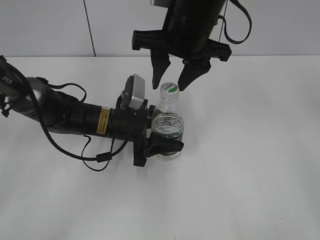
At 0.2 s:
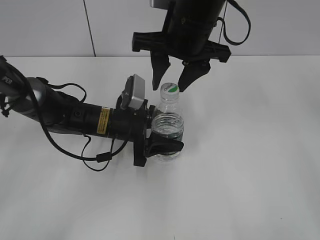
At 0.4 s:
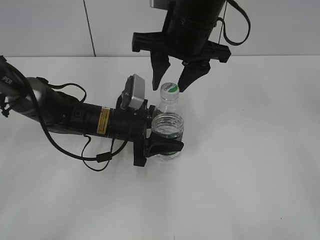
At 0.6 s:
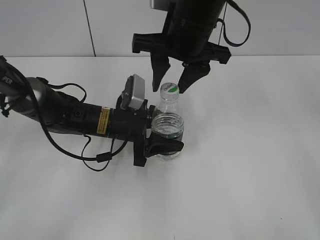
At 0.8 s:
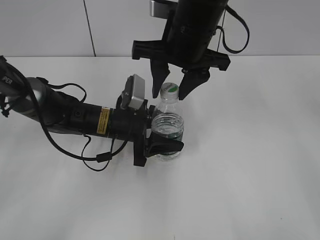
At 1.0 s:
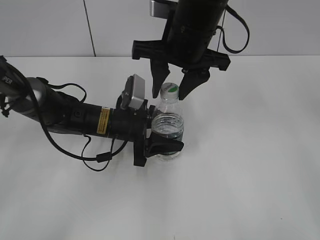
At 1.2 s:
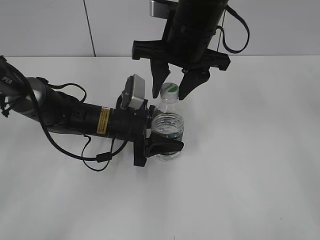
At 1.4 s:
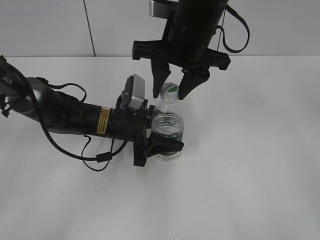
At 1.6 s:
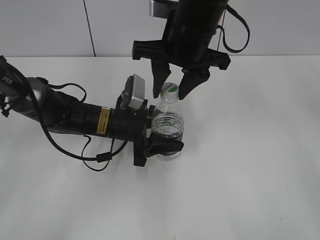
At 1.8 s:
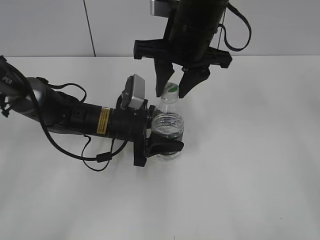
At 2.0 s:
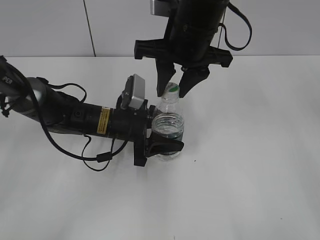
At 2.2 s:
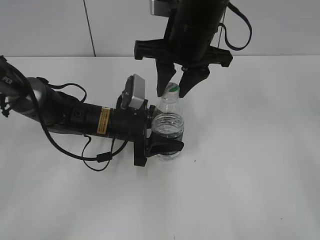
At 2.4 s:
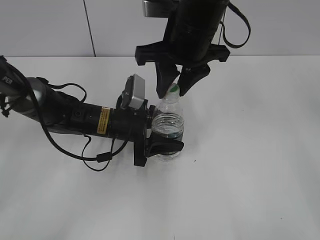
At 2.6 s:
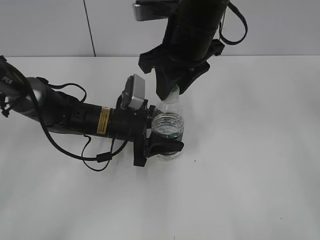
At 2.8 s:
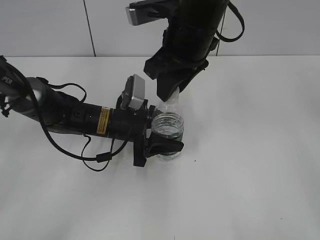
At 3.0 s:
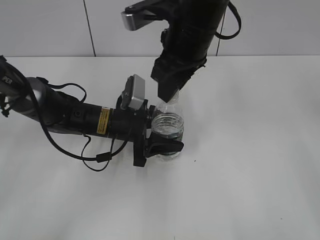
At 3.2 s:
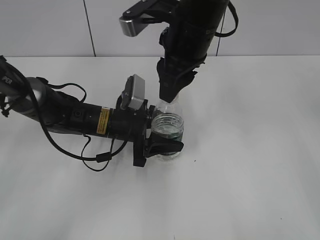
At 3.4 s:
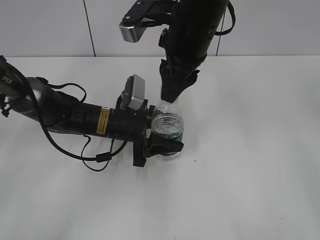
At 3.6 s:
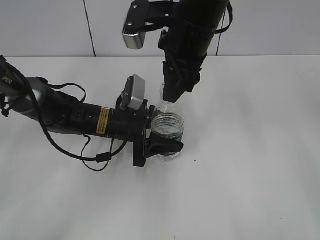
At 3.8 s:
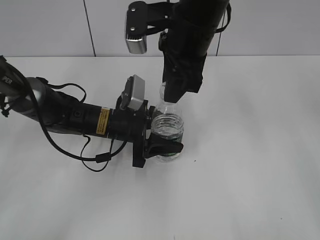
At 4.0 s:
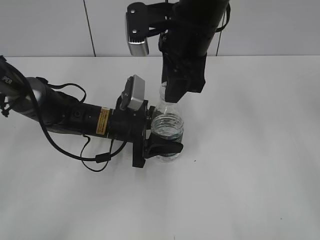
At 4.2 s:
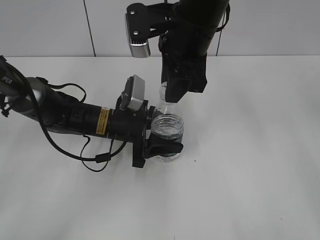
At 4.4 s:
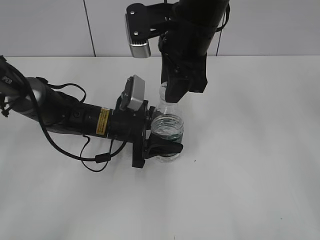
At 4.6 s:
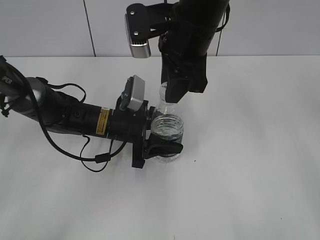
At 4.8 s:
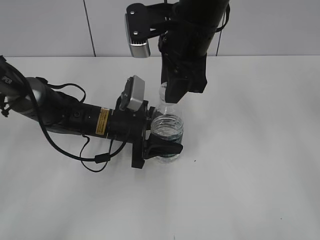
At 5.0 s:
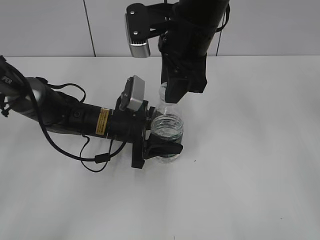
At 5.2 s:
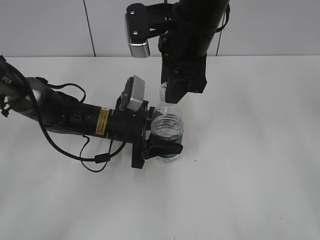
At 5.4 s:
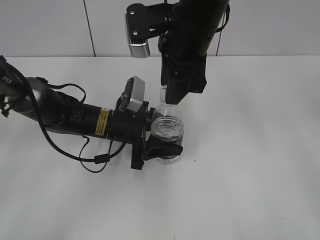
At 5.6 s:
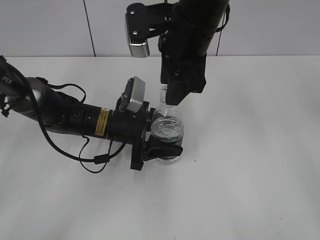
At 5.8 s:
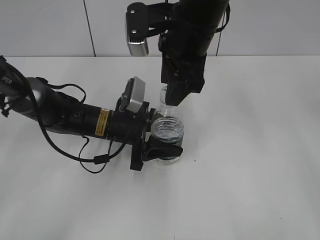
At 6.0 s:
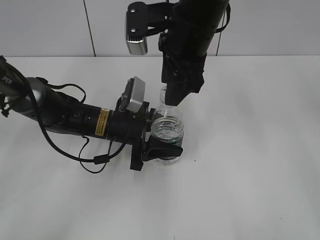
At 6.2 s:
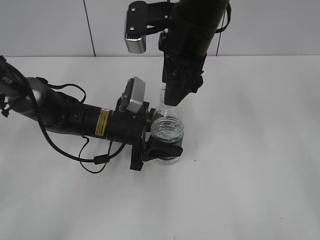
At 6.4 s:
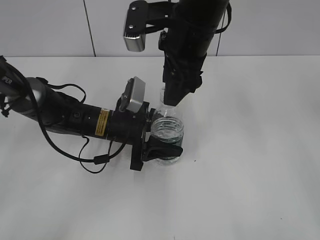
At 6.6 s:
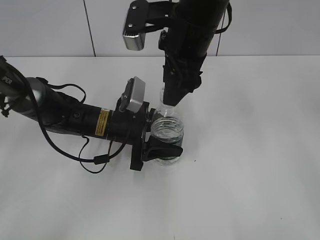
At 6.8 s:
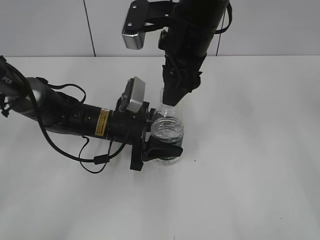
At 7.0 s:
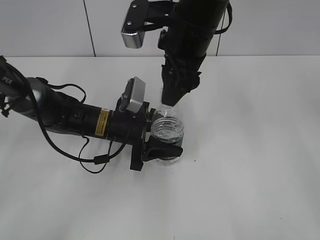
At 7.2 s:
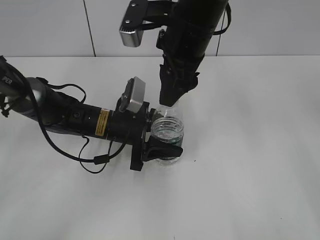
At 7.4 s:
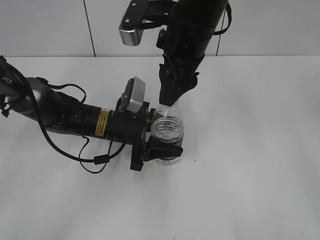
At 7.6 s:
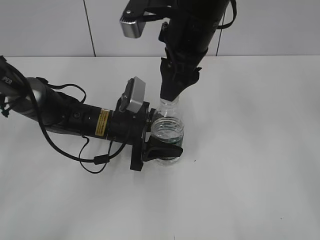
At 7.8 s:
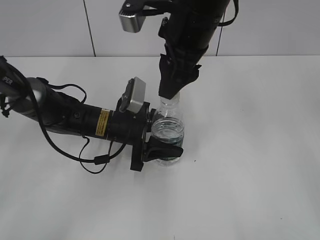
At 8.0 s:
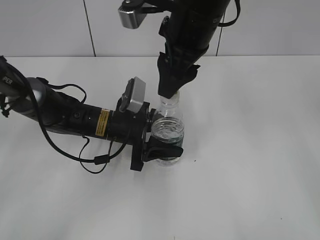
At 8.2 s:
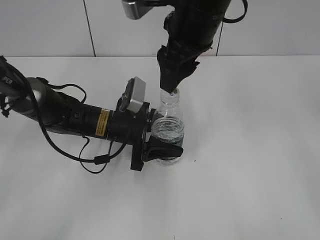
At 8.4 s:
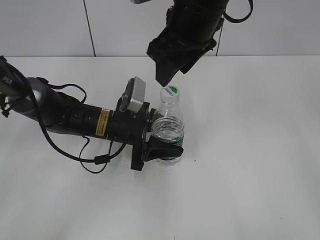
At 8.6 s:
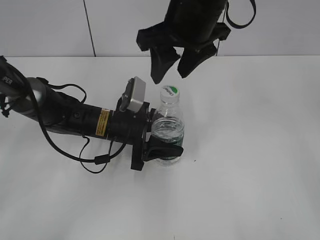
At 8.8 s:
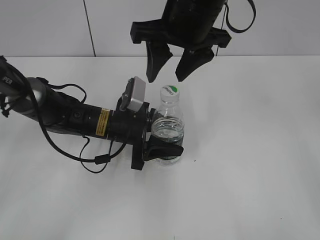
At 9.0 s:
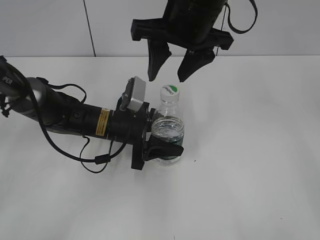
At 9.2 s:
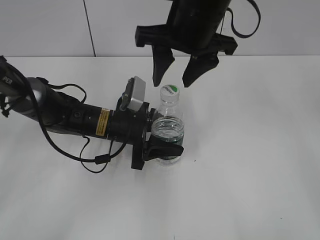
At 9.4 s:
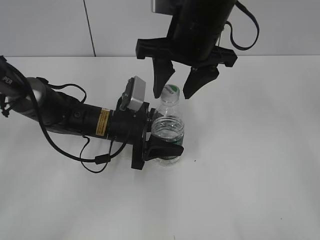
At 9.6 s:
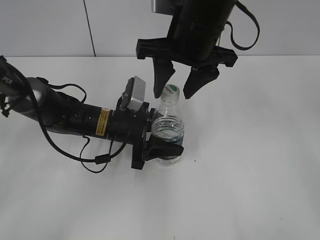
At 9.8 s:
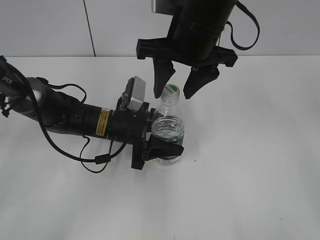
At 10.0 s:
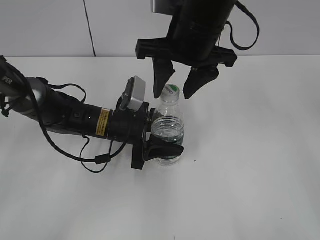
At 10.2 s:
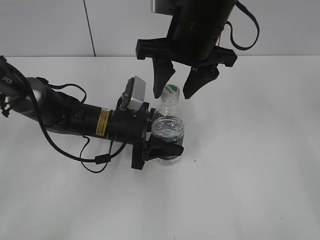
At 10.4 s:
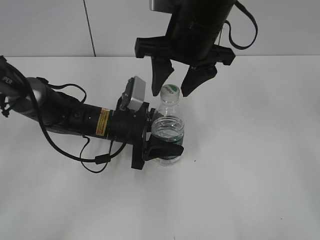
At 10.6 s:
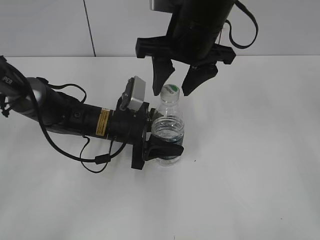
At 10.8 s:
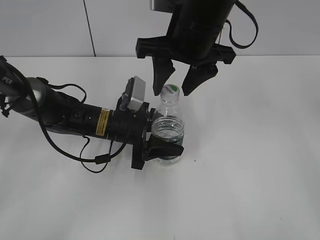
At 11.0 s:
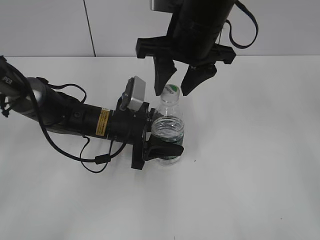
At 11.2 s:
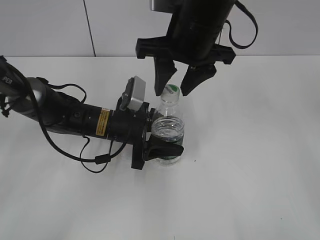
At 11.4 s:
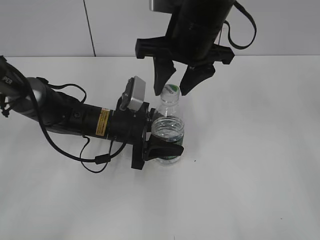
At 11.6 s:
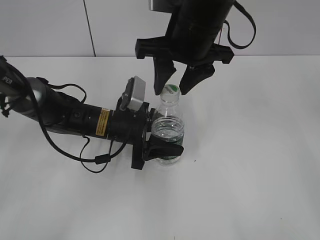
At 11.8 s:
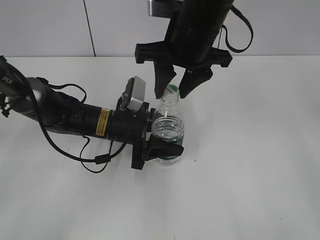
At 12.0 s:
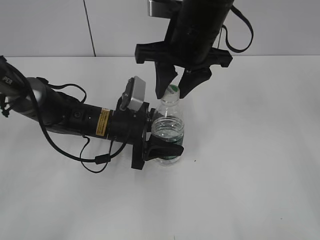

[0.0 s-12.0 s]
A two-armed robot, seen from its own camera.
0.0 to 1.6 s: Neither gripper changes place.
1.6 to 3.0 s: The right gripper closes its fingers.
4.4 to 6.0 s: The right gripper opens up.
6.0 to 7.6 s: The grippers make only small movements.
9.0 to 10.4 s: There are only small adjustments of the grippers.
10.4 to 12.0 s: The right gripper closes.

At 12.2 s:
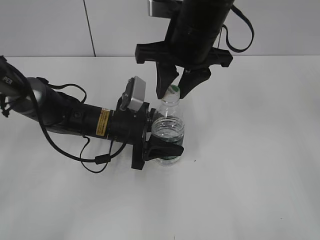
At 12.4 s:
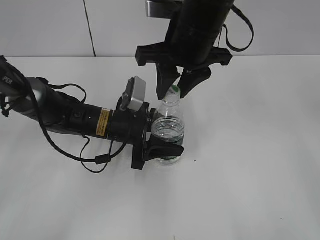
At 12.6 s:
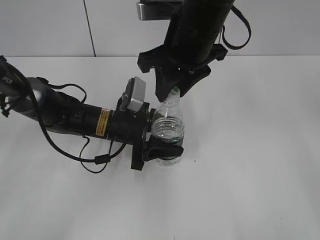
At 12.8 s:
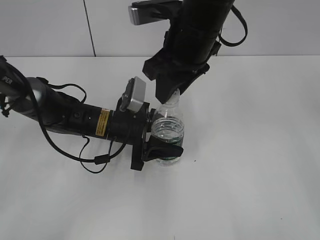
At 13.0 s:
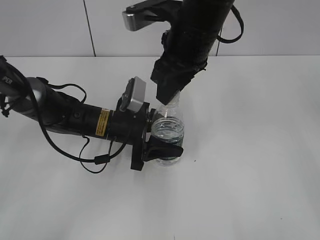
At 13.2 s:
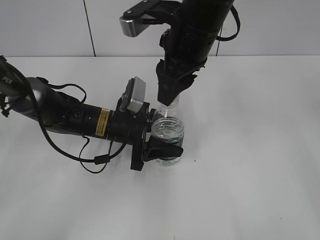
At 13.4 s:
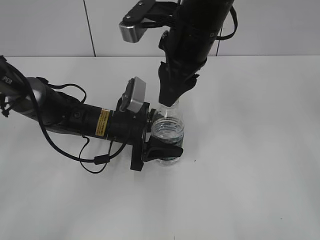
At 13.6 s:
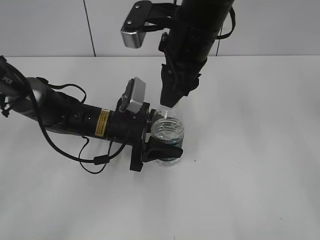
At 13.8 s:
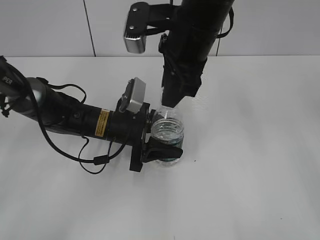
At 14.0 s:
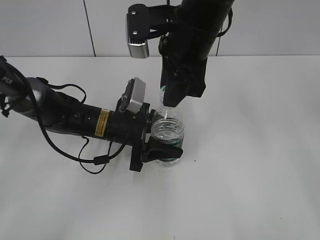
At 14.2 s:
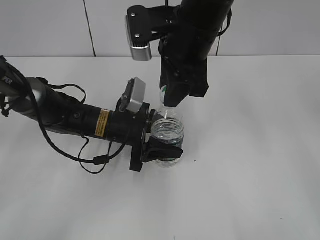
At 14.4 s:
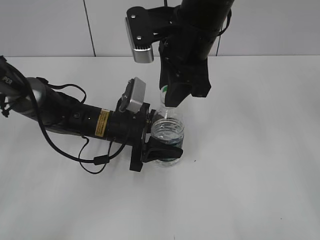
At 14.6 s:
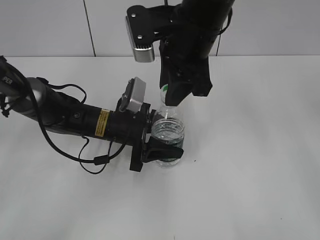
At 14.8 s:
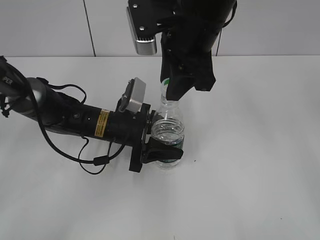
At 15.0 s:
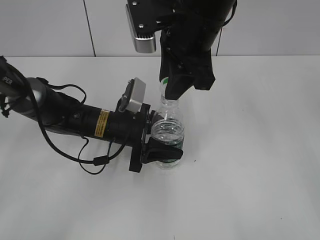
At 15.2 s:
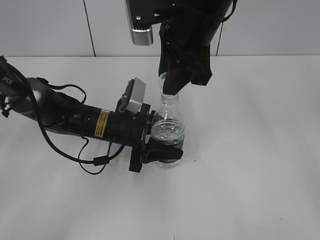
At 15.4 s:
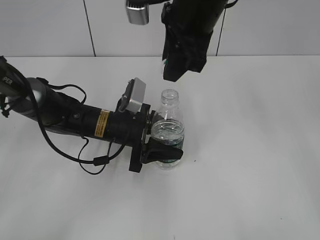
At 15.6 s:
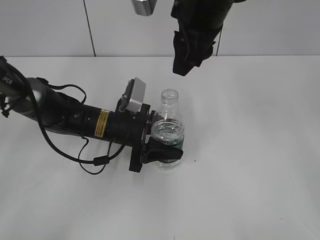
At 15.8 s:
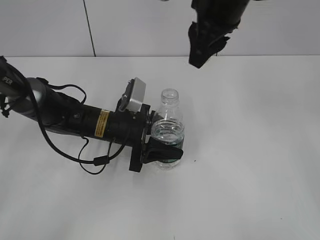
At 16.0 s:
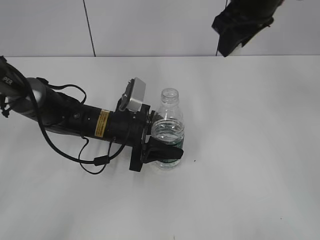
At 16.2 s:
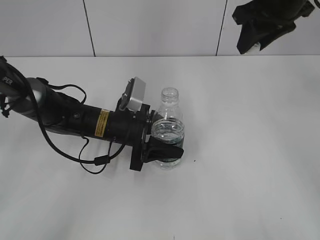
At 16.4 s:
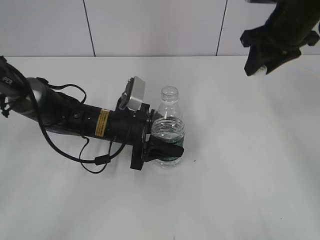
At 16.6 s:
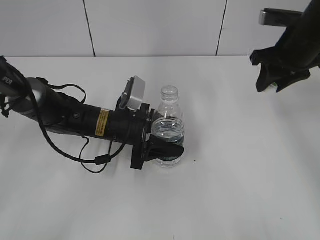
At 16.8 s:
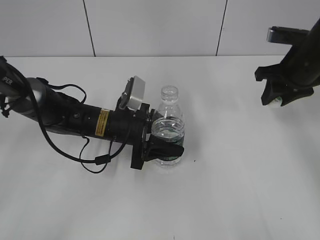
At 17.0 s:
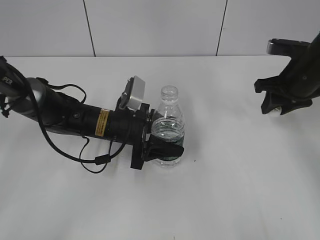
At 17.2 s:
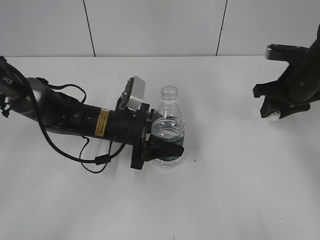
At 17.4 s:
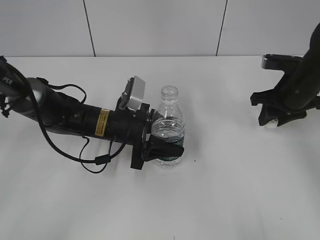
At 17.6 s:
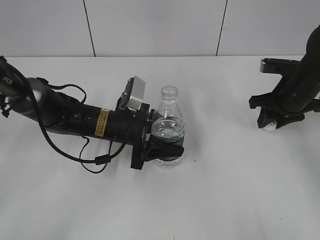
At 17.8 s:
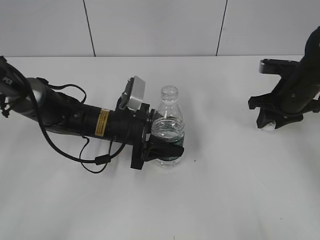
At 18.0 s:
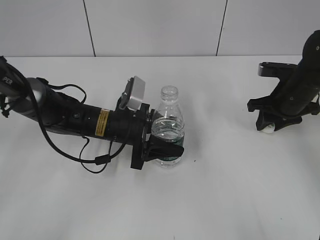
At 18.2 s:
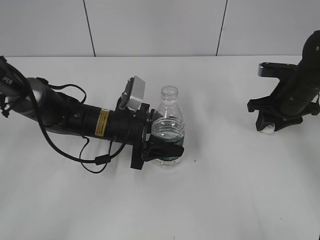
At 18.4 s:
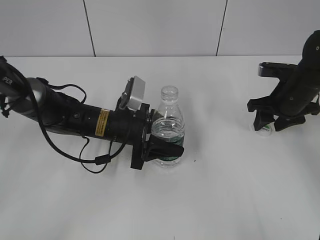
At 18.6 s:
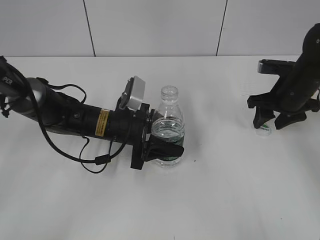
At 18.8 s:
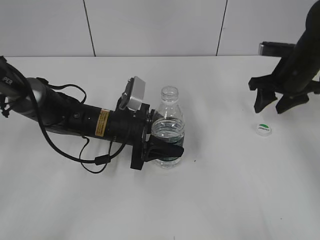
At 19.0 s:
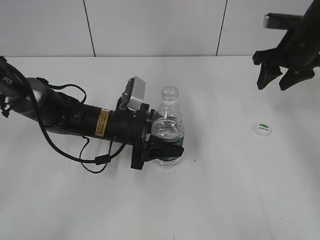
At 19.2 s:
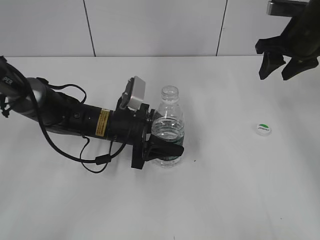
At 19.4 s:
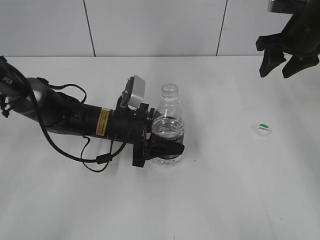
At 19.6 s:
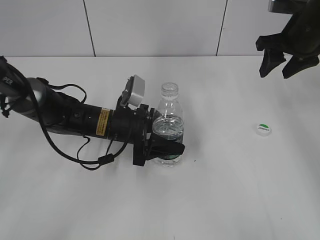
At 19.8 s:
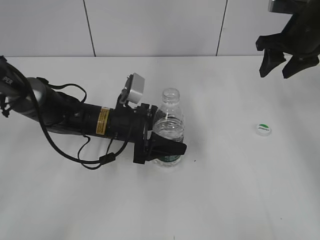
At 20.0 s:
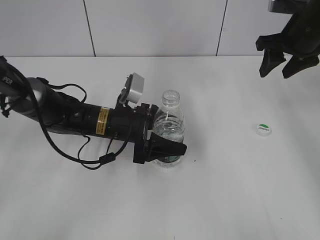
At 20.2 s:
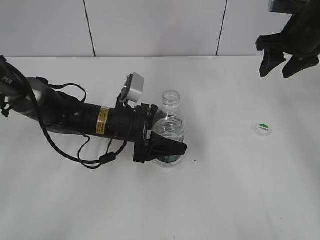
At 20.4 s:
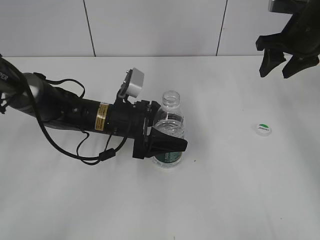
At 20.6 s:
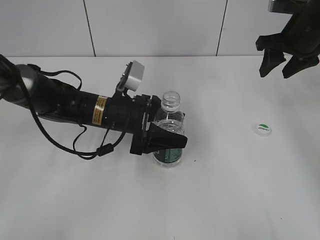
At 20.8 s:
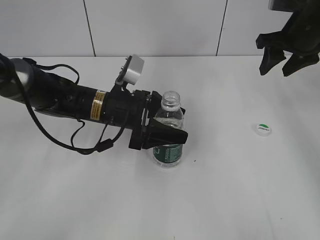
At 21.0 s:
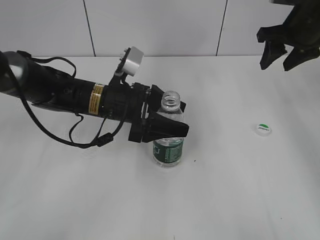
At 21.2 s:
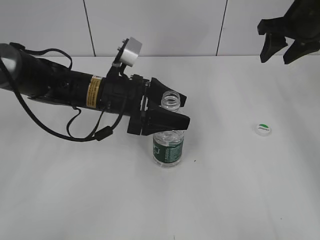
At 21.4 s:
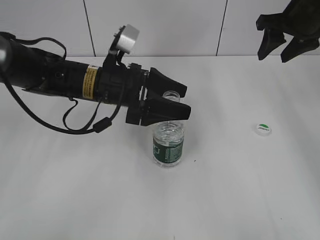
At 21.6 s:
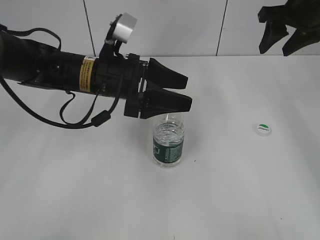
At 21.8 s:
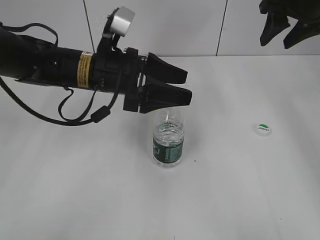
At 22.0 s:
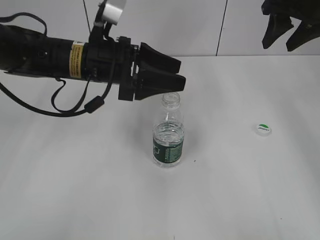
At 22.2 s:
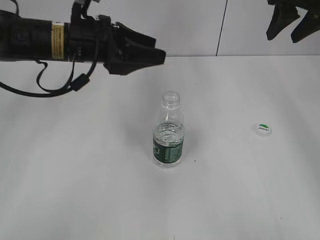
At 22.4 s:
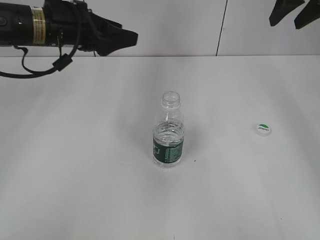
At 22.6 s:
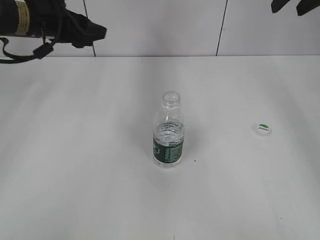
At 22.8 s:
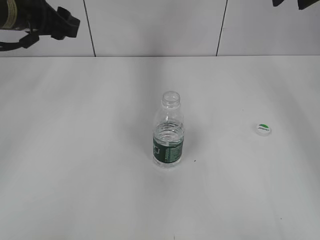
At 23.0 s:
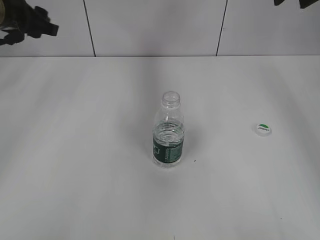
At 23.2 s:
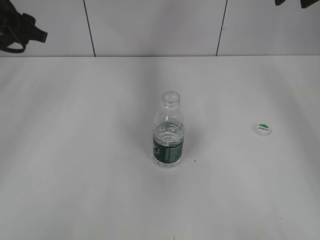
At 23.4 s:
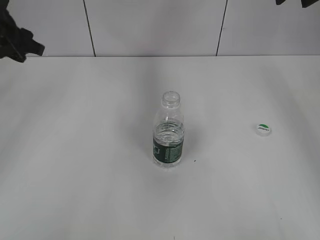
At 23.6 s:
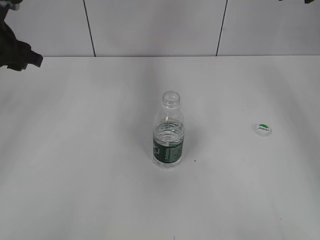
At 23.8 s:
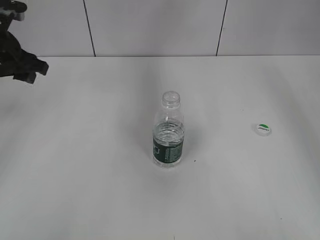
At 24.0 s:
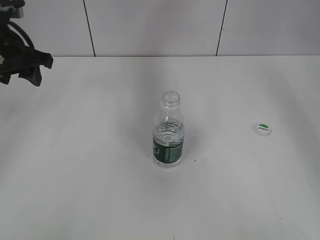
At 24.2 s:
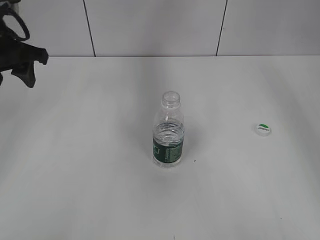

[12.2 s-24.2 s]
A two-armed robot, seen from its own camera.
Step, 12.2 to 15.4 s: Unscrew the bottle cap with the right gripper while holding the bottle with the left gripper.
Step, 15.6 to 19.0 s: Place the bottle cap on the table with the right gripper.
Step, 19.2 to 21.2 s: Place the bottle on the table with the left gripper.
13.8 to 15.2 s: There are only small adjustments of the grippers.
15.2 to 16.6 s: The right gripper goes about 20 cm to the right.
16.6 to 18.2 s: The right gripper travels downward by roughly 10 cm.
18.2 to 19.8 s: The right gripper goes some 10 cm upward, and opens up.
19.8 to 21.2 s: The left gripper heads upward, covering some 5 cm.
21.2 to 22.6 s: The right gripper moves upward, roughly 10 cm. Meanwhile the left gripper moves to the left, upward and forward, some 15 cm.
22.6 to 24.2 s: The left gripper shifts about 5 cm to the left.
